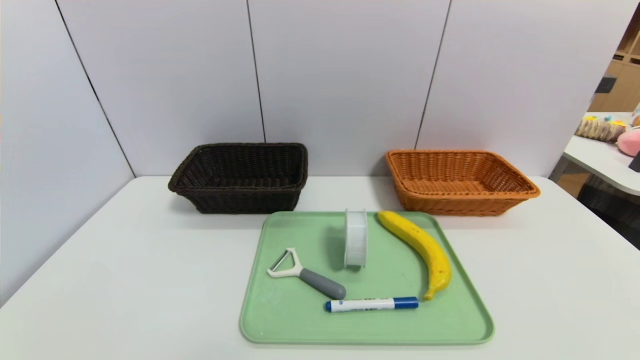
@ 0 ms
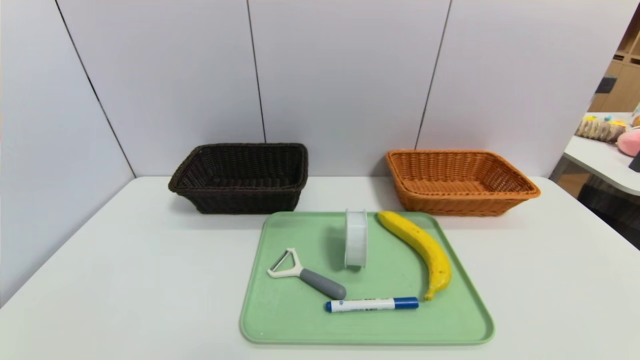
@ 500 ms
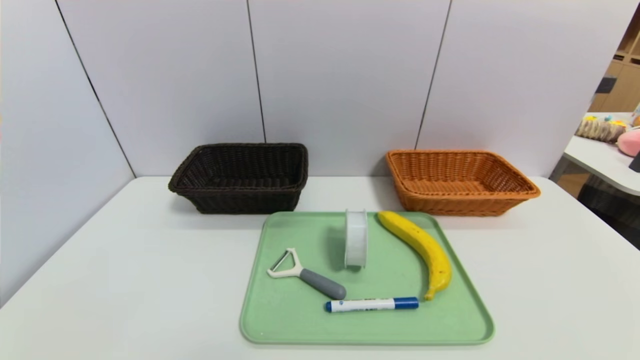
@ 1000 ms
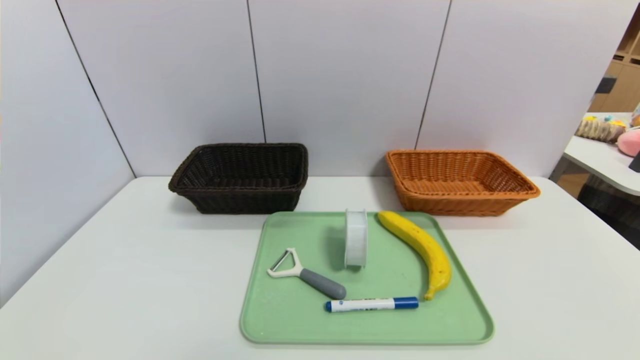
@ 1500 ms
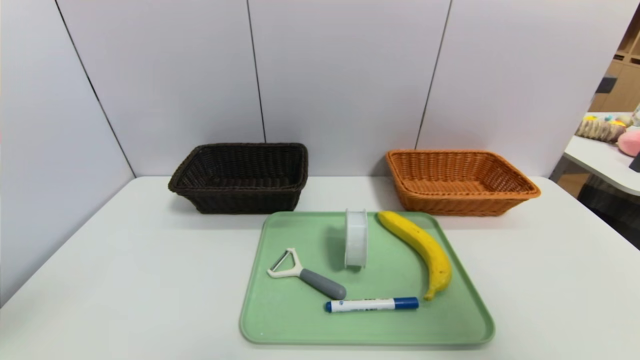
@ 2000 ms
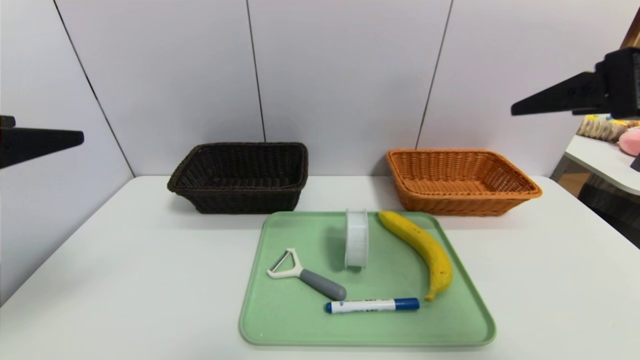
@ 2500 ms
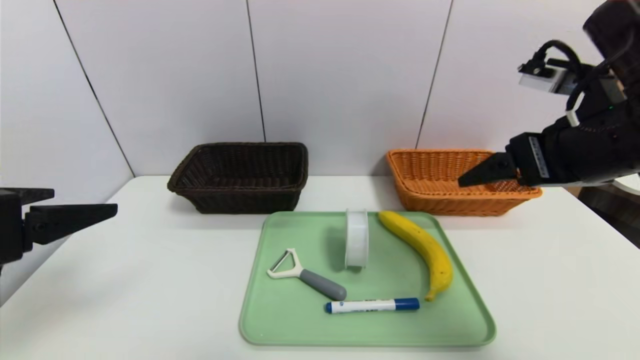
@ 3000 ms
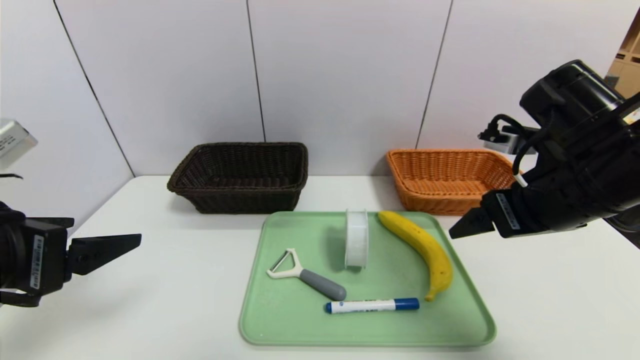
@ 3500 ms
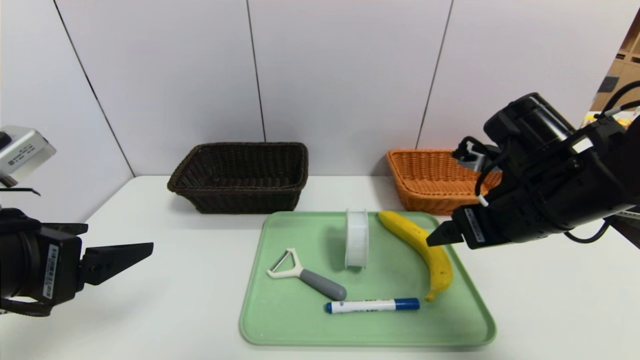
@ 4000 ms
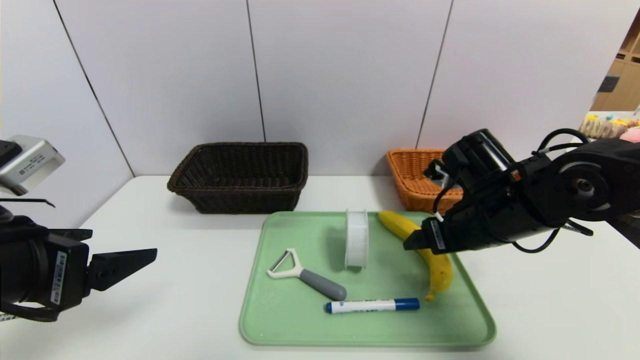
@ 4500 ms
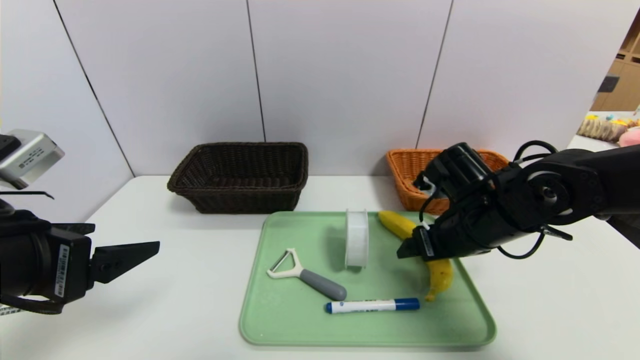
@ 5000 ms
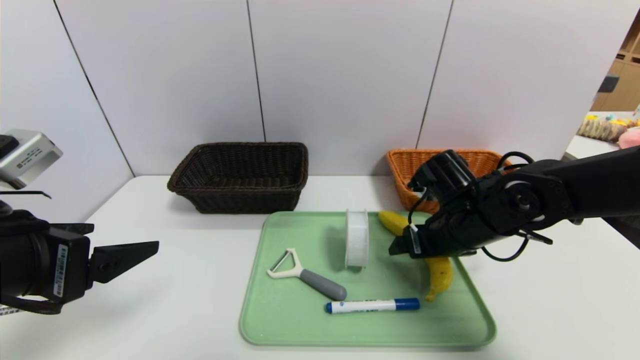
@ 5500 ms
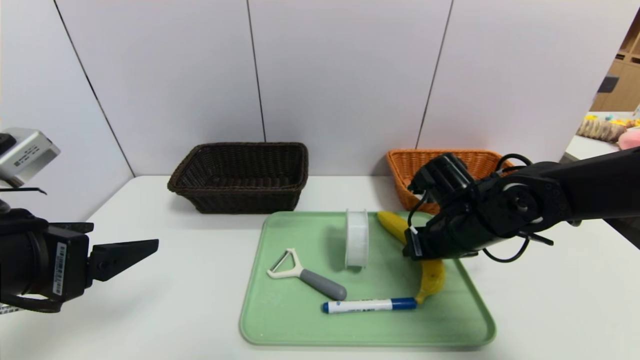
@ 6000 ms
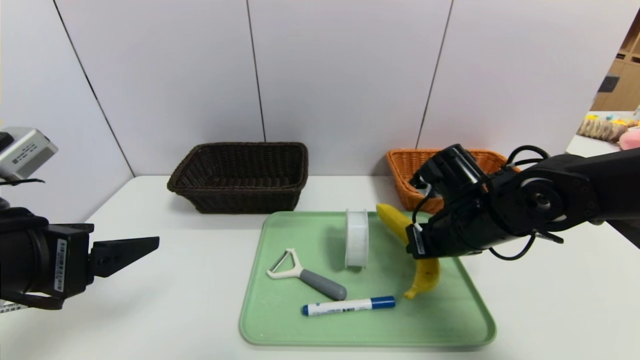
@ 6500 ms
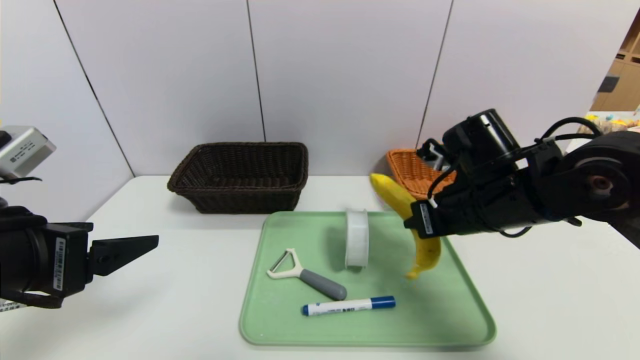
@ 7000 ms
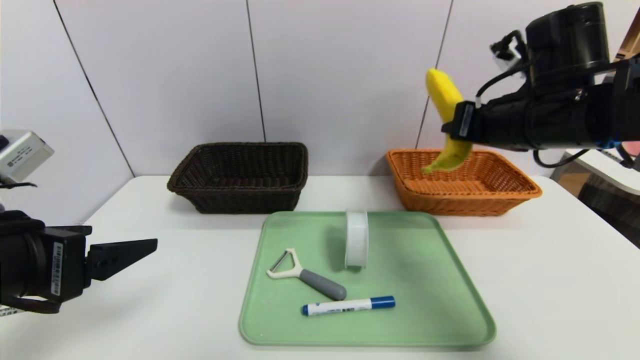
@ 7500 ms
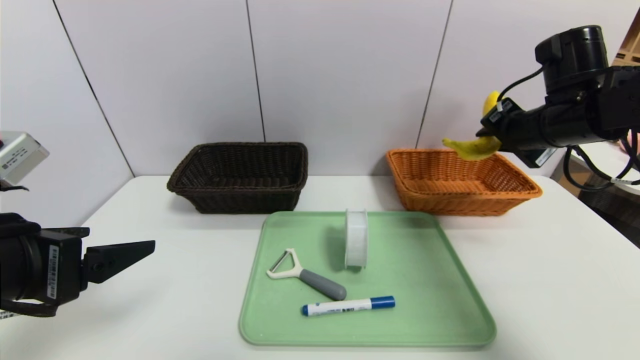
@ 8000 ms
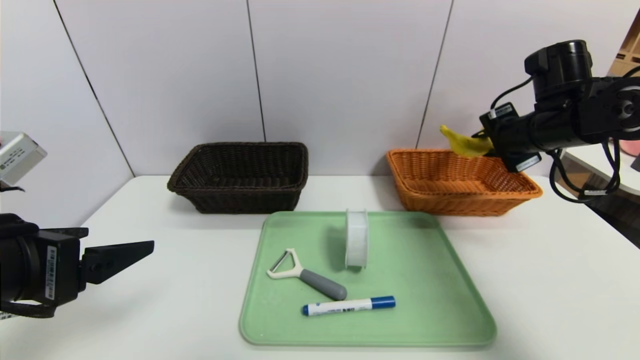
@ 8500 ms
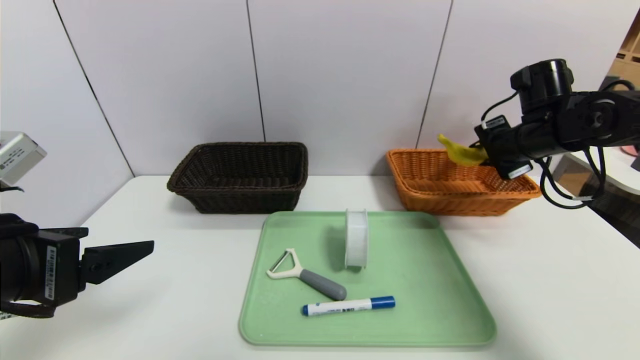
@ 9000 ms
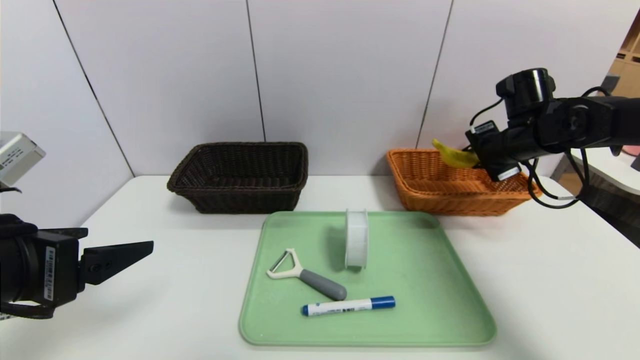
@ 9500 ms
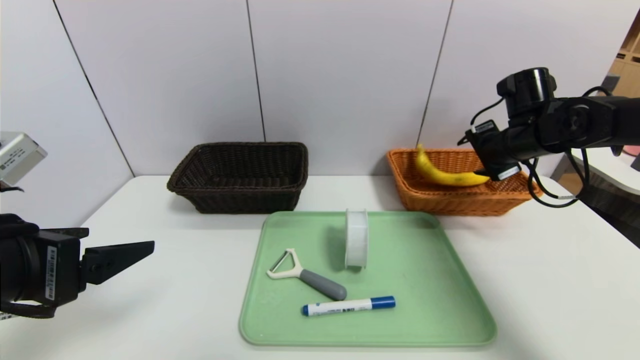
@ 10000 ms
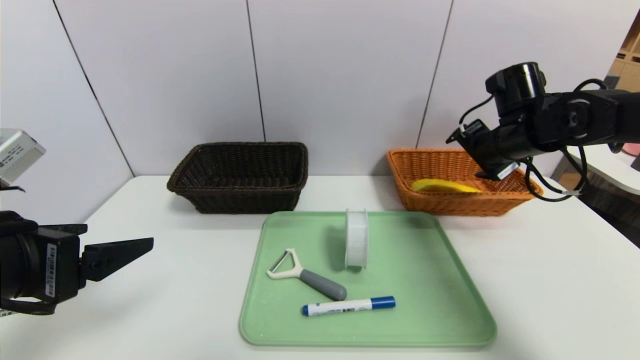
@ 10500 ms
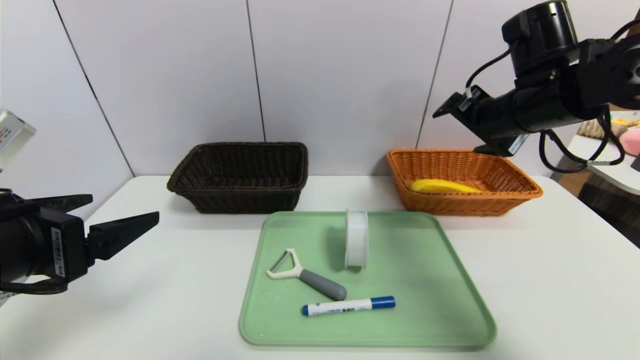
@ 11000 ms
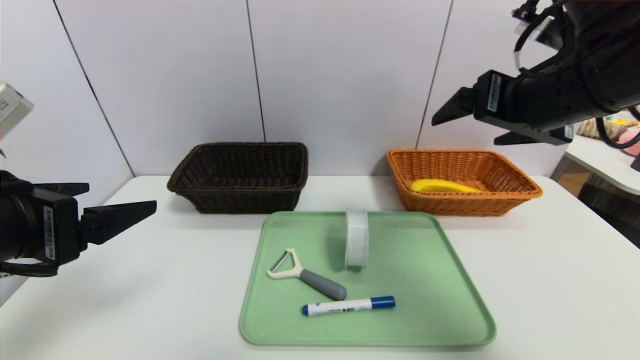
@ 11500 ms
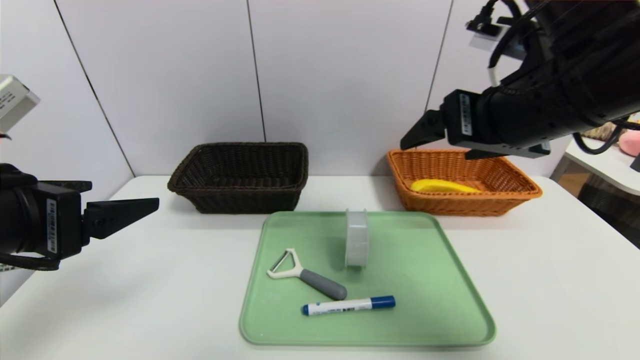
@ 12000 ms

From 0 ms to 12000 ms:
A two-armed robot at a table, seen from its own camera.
Task of the whole recording: place the food in the right basket with the right gripper, and place the non food items in the left basket with the left gripper.
Step, from 0 ms to 10500 ms: Grasp the banana and put it in the right basket.
From 0 ms to 2000 ms: Both grippers move upward, about 30 cm.
From 2000 ms to 4000 ms: The right gripper shifts about 30 cm downward, forward and to the left, while the left gripper shifts roughly 15 cm downward and forward.
From 4000 ms to 6000 ms: The right gripper goes some 10 cm downward and forward, and closes its fingers.
From 6000 ms to 8000 ms: The right gripper goes some 15 cm upward and to the right.
From 8000 ms to 10000 ms: The right gripper travels forward and downward by about 10 cm, and opens up.
From 10000 ms to 12000 ms: The right gripper goes roughly 25 cm backward, to the left and upward, and opens.

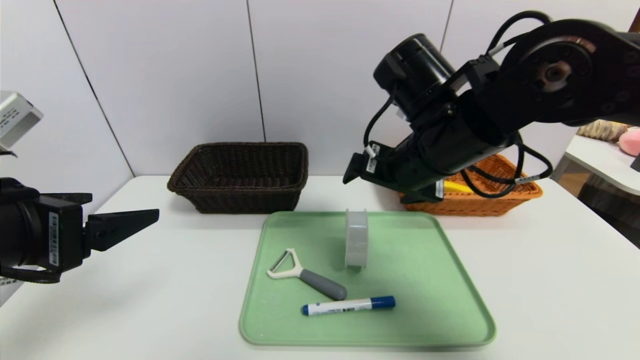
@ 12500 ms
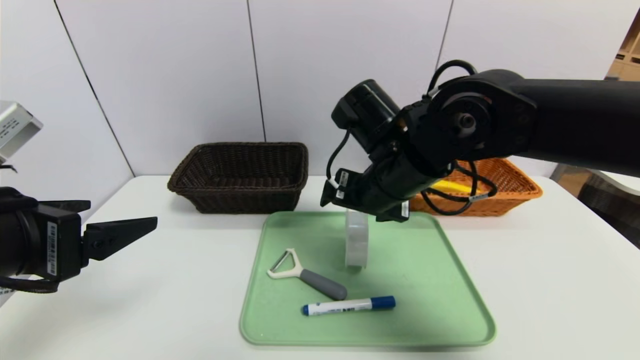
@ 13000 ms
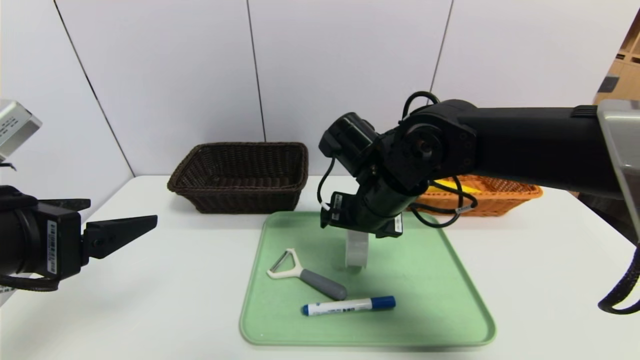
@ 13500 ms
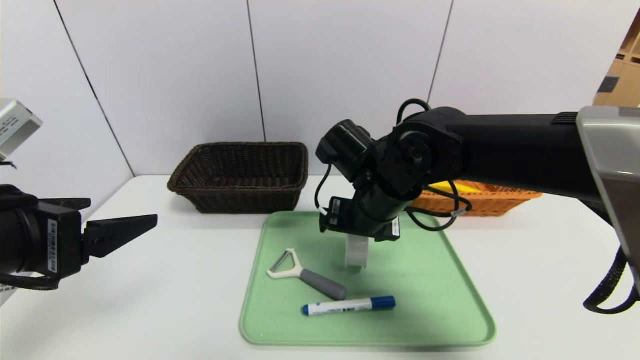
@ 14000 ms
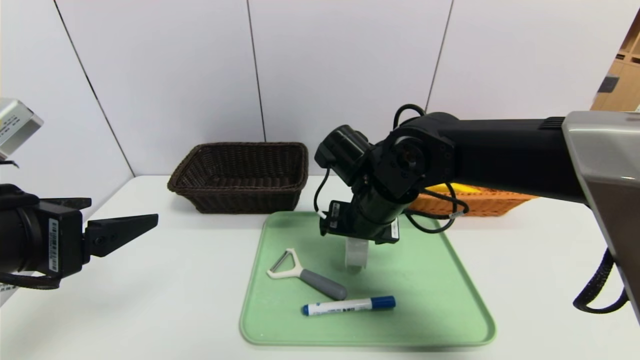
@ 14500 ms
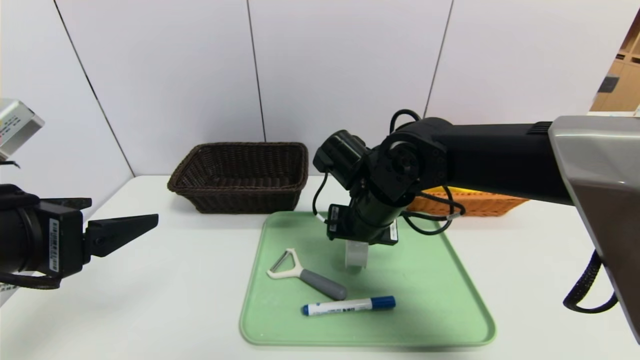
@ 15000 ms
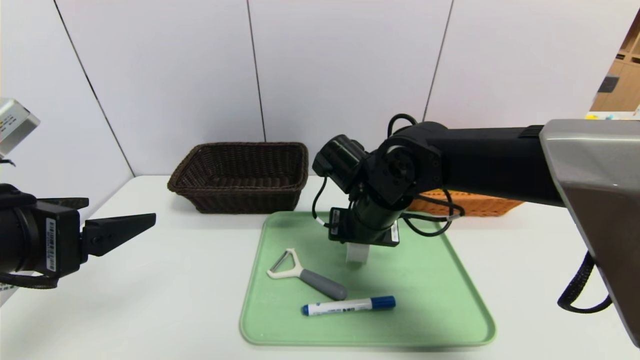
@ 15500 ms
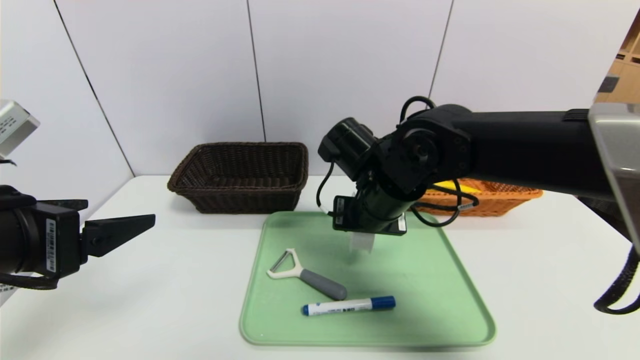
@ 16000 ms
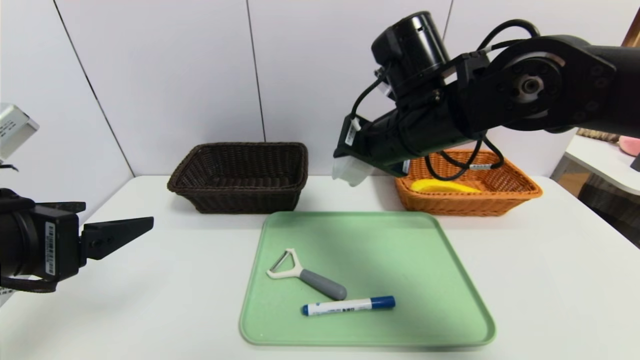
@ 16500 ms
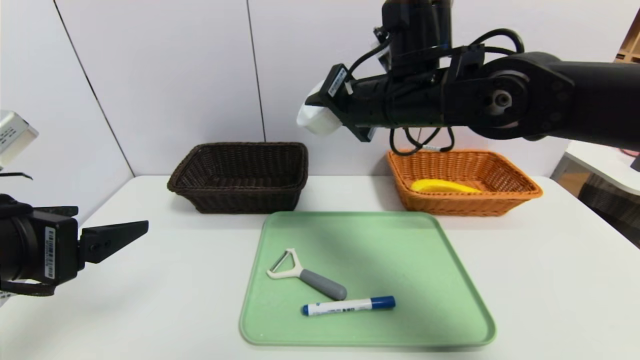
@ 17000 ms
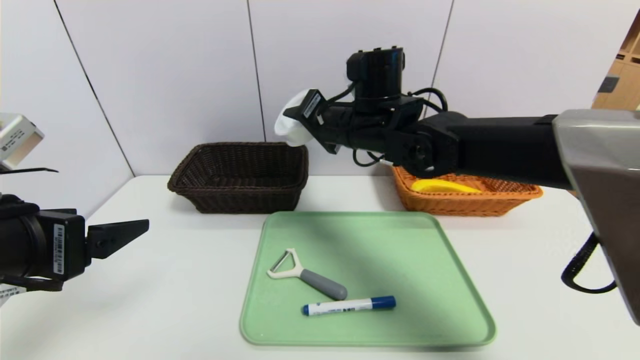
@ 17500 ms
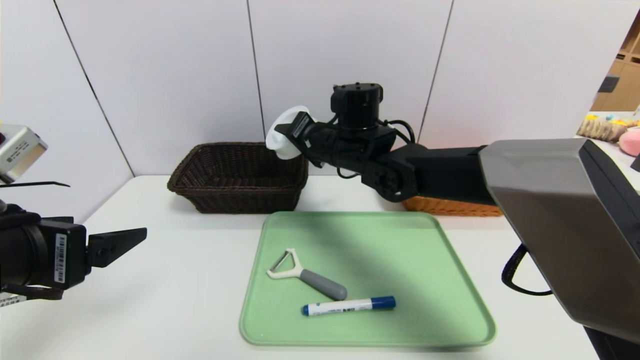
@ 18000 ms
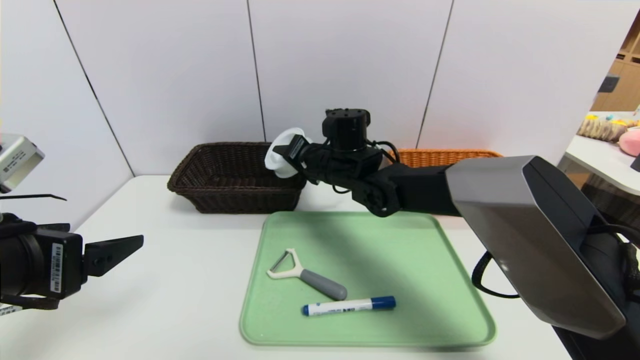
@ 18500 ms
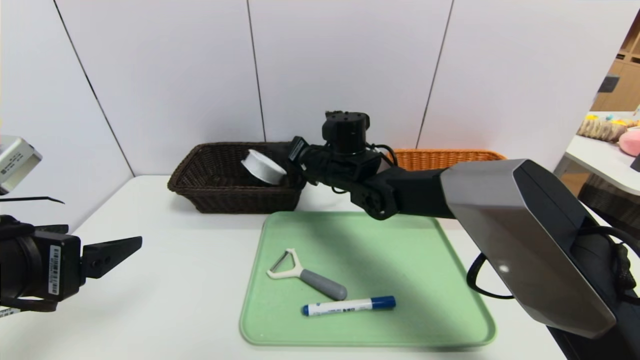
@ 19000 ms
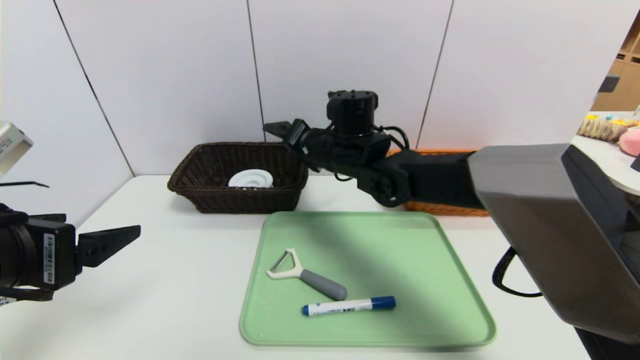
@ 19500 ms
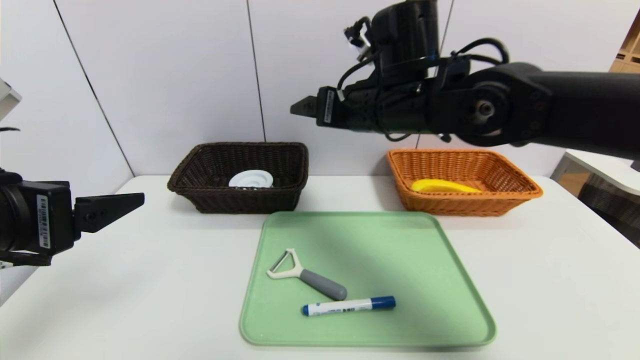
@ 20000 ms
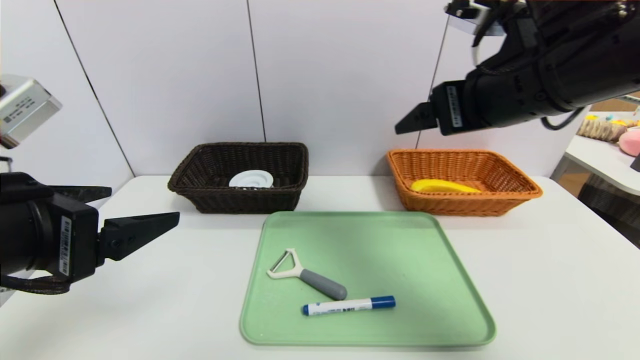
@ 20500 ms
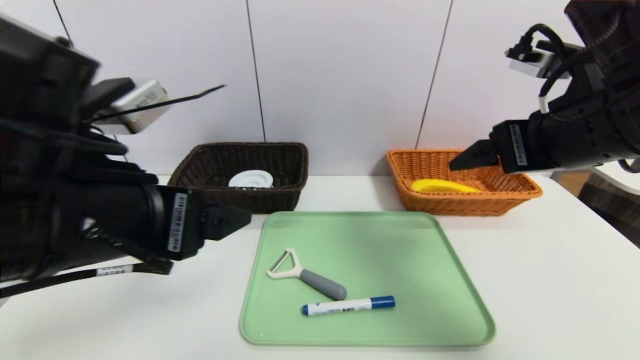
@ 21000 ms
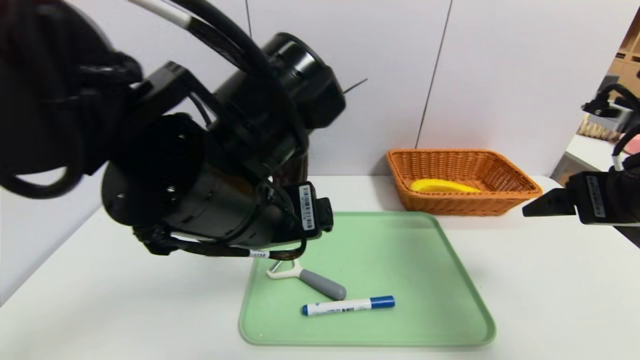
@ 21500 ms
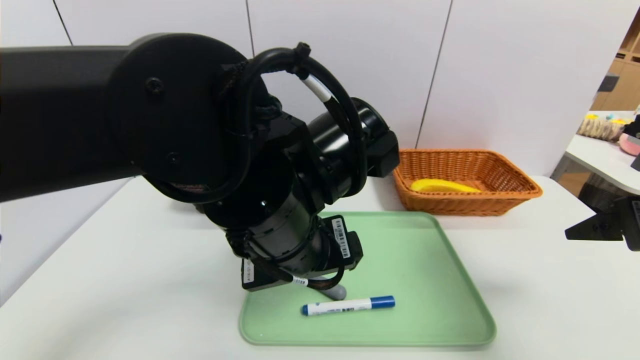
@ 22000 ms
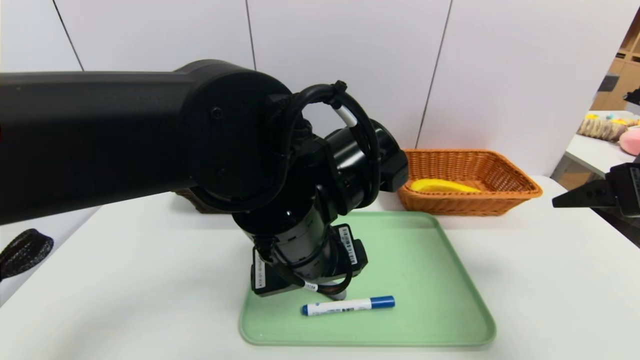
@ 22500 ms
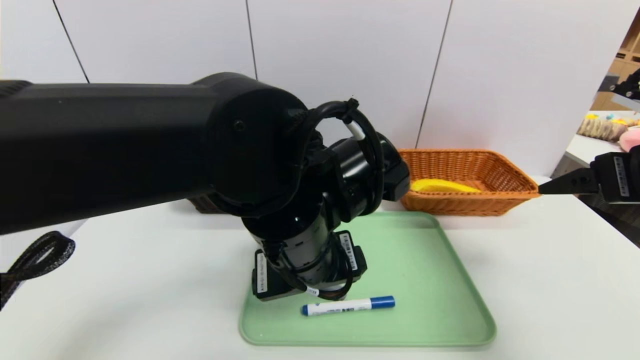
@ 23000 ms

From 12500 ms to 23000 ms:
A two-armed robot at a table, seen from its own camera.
Task of the whole recording: place the food in the right basket with the right gripper, and place the non food items in the left basket with the left gripper.
From 12500 ms to 14500 ms: The right gripper moves downward, roughly 10 cm.
From 14500 ms to 16500 ms: The right gripper shifts approximately 10 cm upward, and closes.
From 16500 ms to 19000 ms: The right gripper is displaced downward, forward and to the left by some 20 cm, and opens its fingers.
From 19000 ms to 21000 ms: The right gripper is displaced to the right, backward and upward by some 30 cm, and opens up. Meanwhile the left gripper moves to the right, about 10 cm.
From 21000 ms to 23000 ms: The right gripper shifts some 10 cm to the right, while the left gripper shifts approximately 15 cm to the right, downward and forward.
